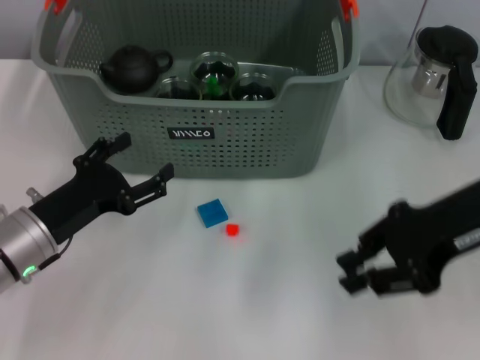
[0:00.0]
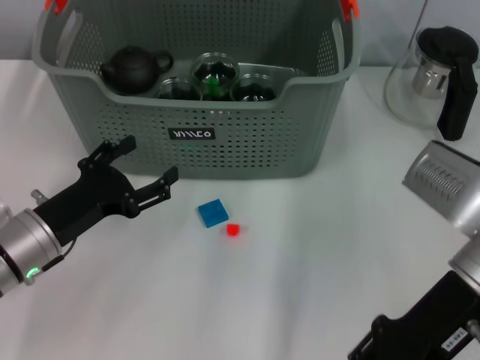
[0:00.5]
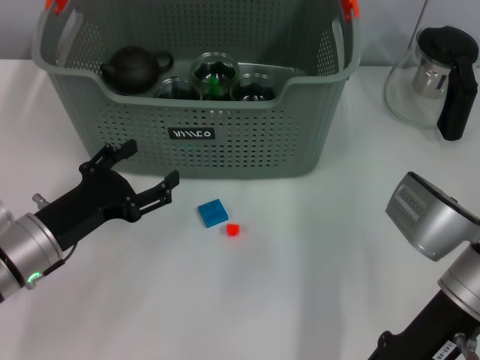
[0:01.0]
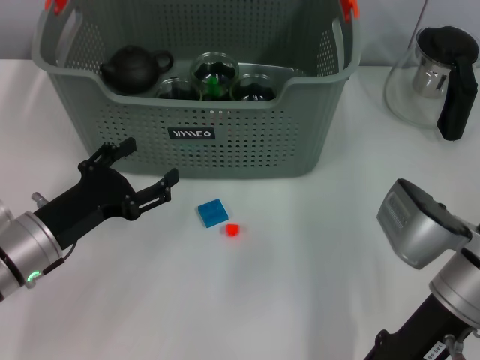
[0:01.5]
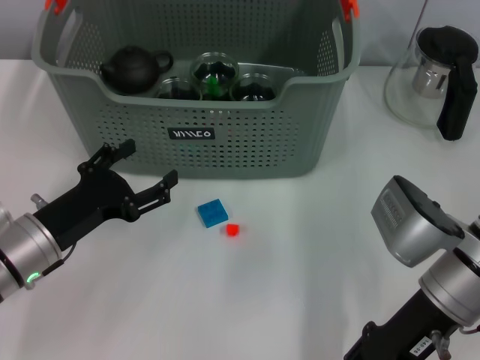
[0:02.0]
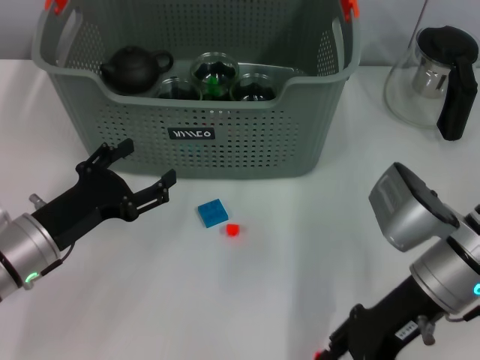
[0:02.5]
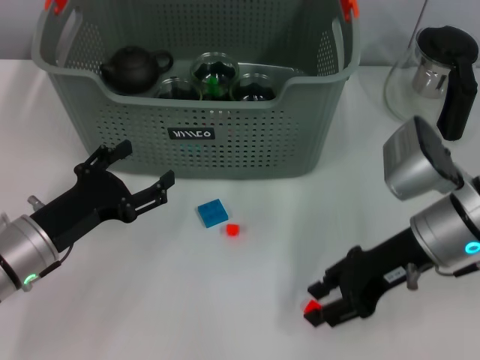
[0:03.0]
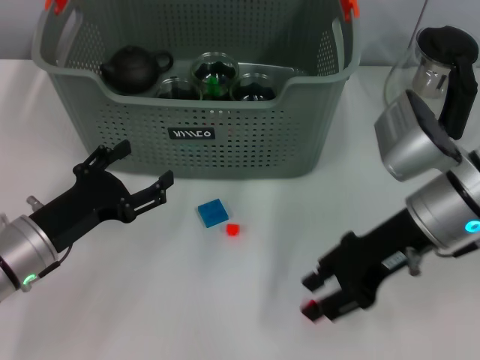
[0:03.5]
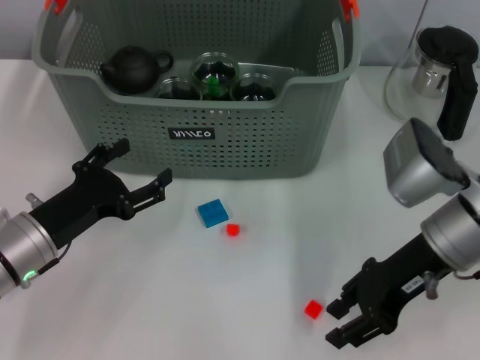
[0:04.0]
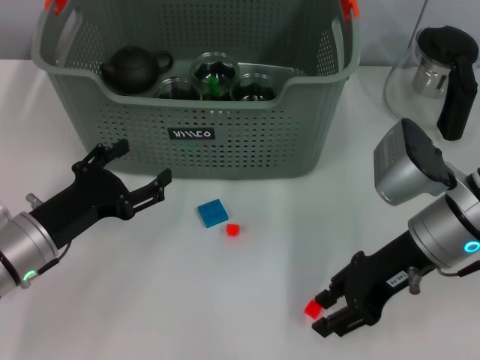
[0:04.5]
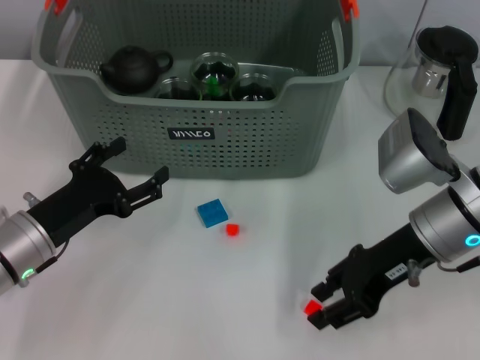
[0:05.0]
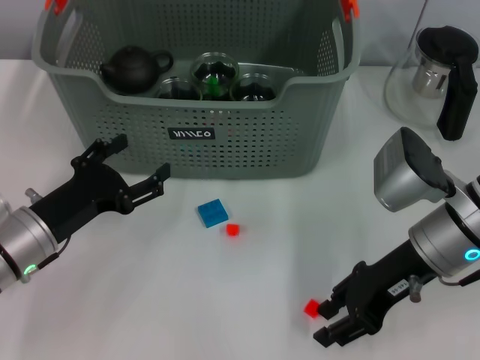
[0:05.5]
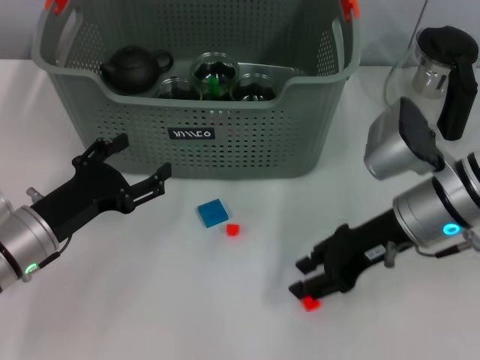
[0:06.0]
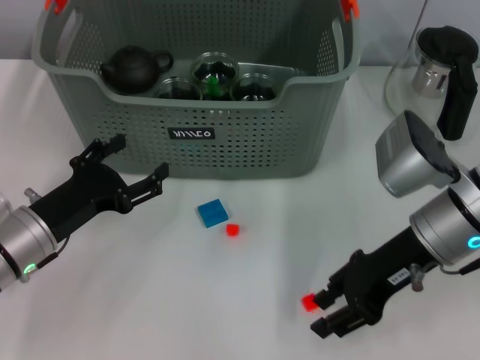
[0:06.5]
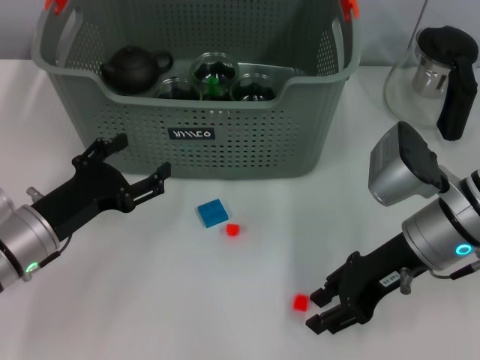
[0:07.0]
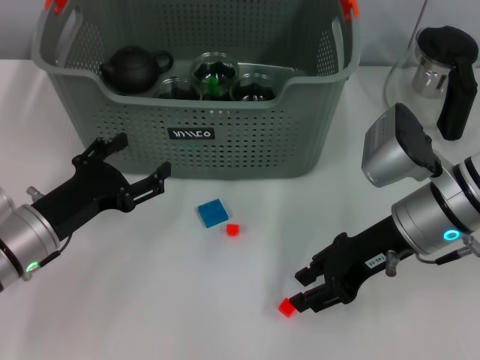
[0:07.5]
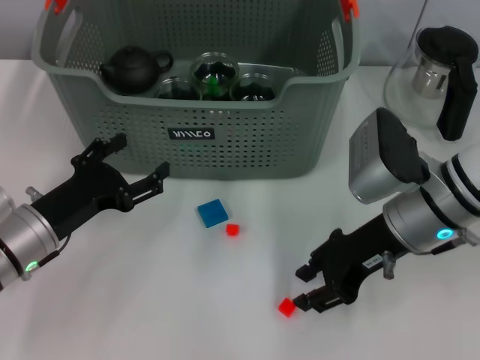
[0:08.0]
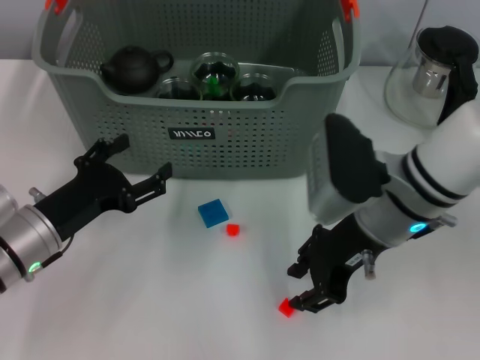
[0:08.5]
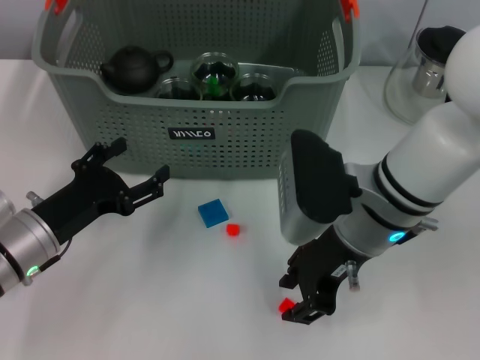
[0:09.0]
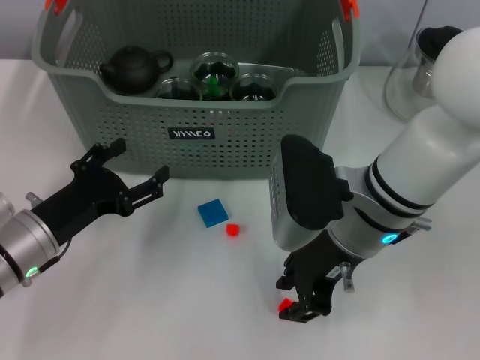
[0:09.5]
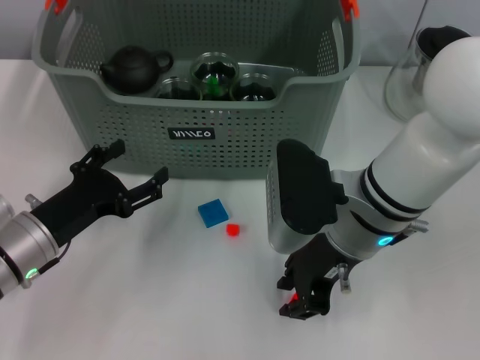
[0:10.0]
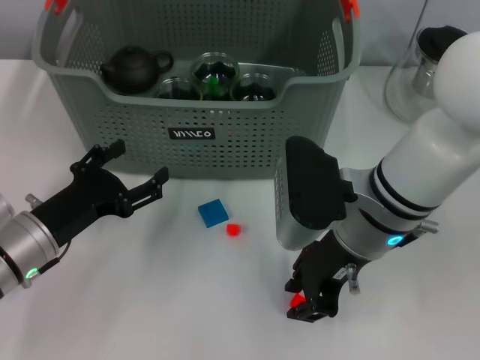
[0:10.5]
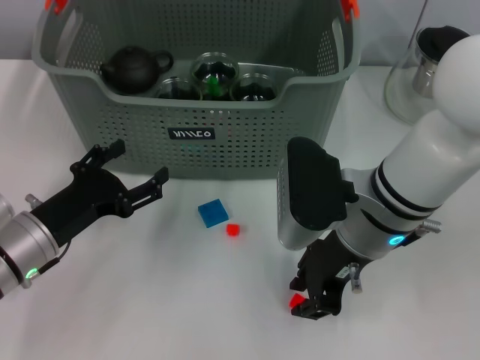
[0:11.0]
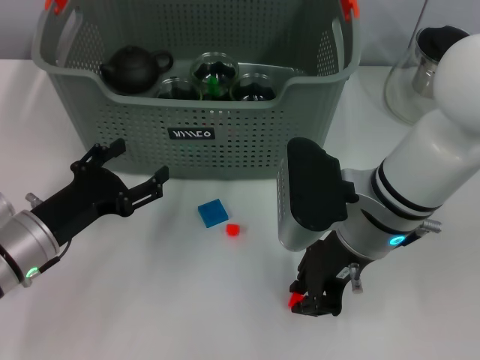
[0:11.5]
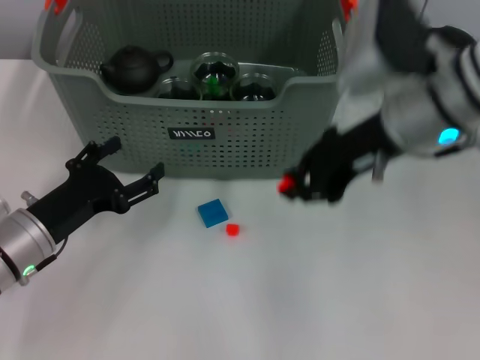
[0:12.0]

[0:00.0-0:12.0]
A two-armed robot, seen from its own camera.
Task of the whole recording: pick up the teacup on the table and place it into the storage bin, pick up the block on the table and place it into the storage bin.
Step, 0:00.0 to 0:11.0: Grasp the orange block with right gripper.
0:00.0 to 0:02.0: The right gripper shifts some 10 cm downward, and opens up.
0:04.0 to 0:08.0: The grippers stay close to where they were, moving slightly.
0:08.0 to 0:10.0: The right gripper moves to the left, about 5 cm.
0:10.0 to 0:12.0: The right gripper travels upward by roughly 10 cm.

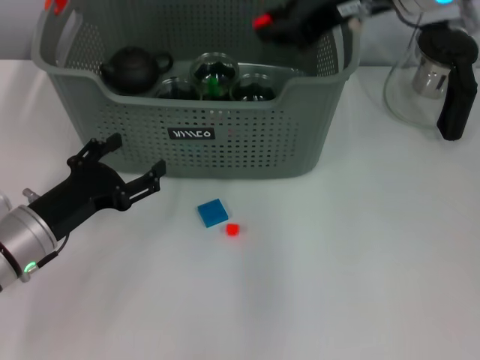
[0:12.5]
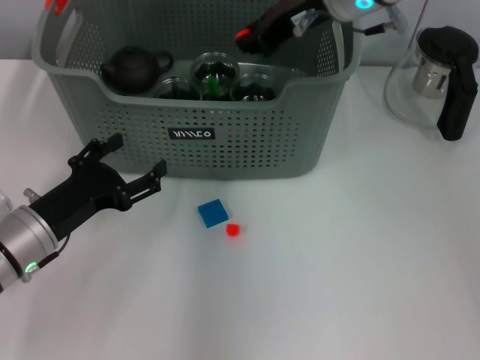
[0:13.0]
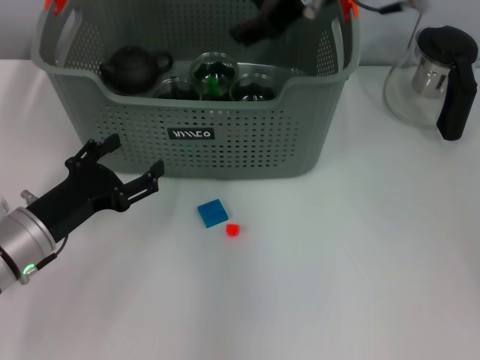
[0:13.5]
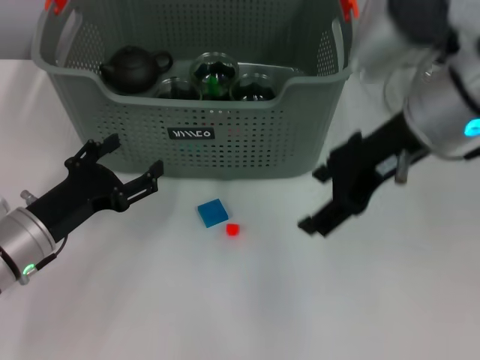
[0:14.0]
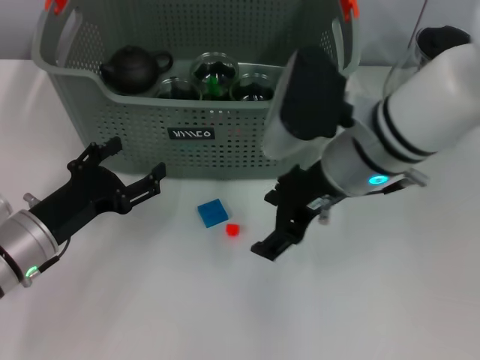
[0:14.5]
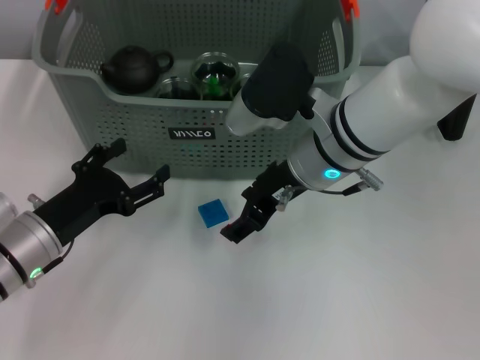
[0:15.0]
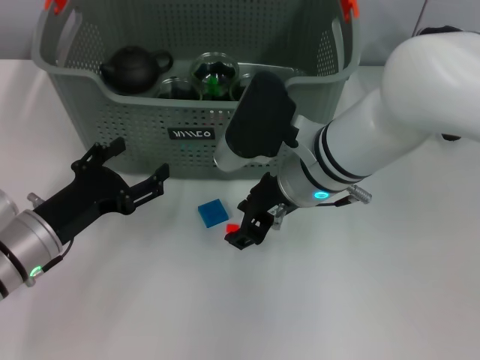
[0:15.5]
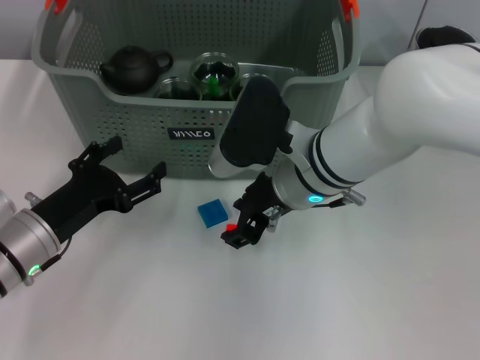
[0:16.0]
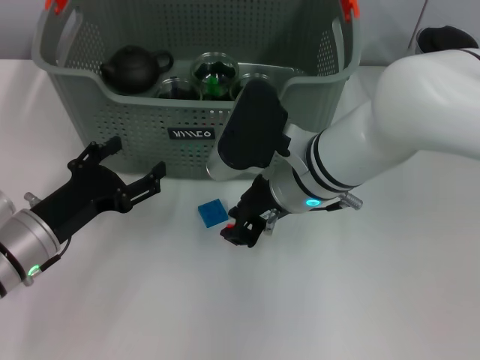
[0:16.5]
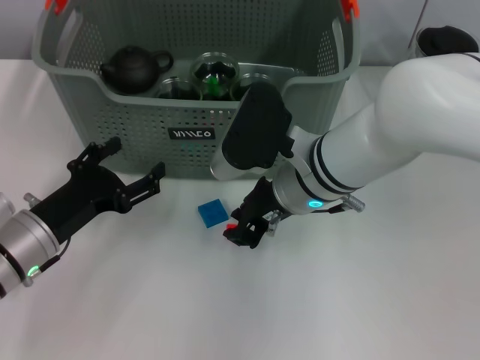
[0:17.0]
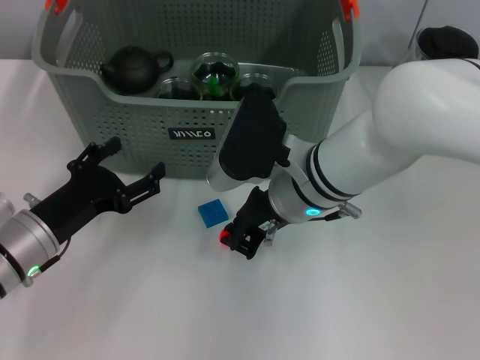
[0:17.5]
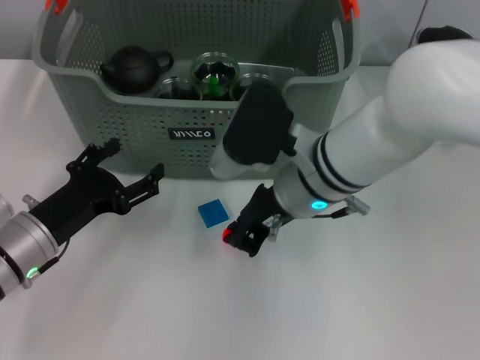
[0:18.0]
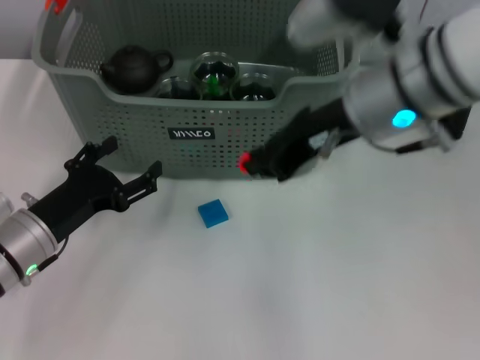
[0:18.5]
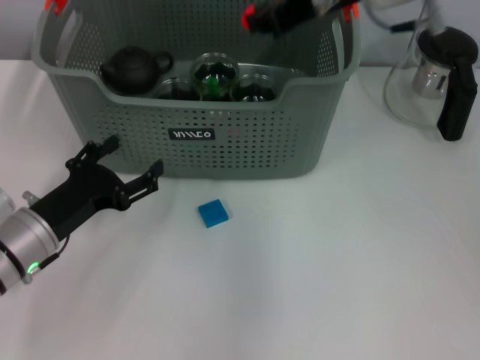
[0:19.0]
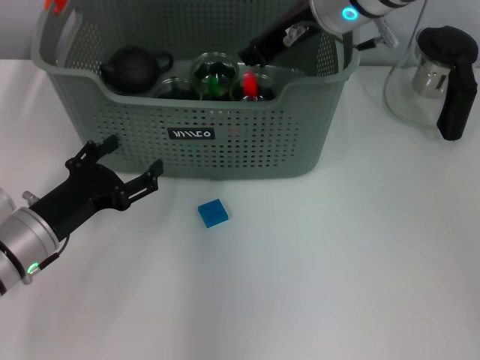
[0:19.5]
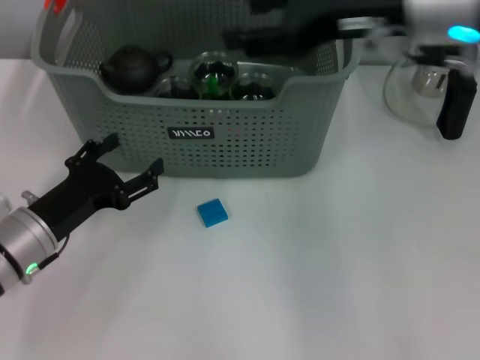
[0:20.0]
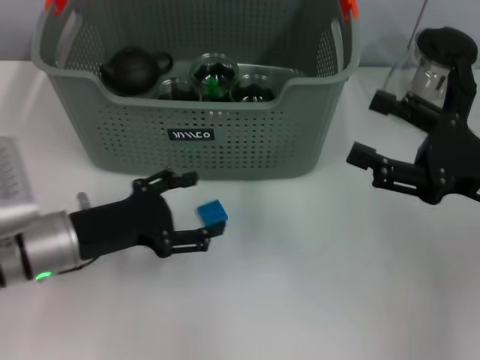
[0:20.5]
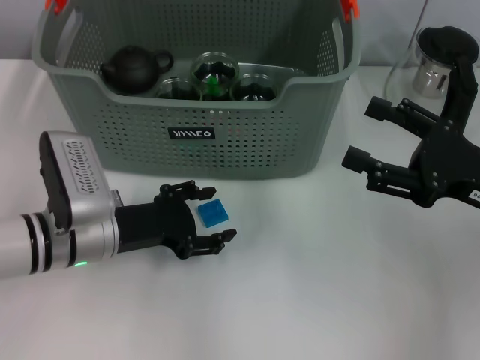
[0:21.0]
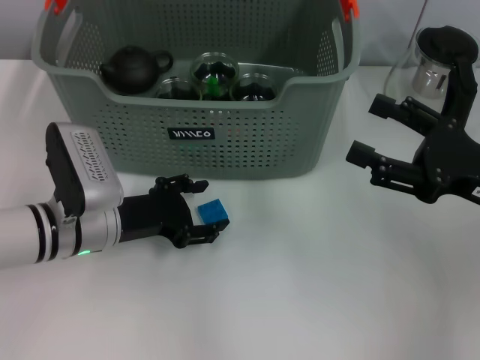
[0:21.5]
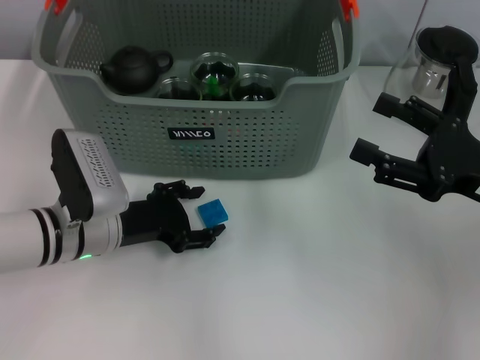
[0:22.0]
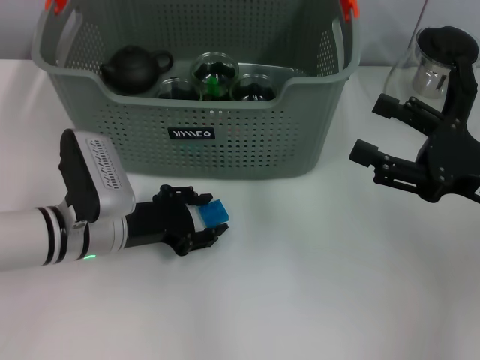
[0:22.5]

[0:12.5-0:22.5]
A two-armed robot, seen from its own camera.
Task of the whole recording: pick up the teacup on the table and place it into the storage bin, pick up the block on the table and place it into the storage bin.
Step, 0:13.5 to 0:17.5: Grasp the orange block with right gripper.
Step, 0:18.0 to 0:19.5: Place the orange block in the storage box with right gripper.
0:12.5 to 0:14.5: The right gripper travels downward and backward by some 15 cm, and opens up.
0:14.5 to 0:16.5: The right gripper moves downward, about 5 cm, and closes.
0:16.5 to 0:18.5: The right gripper heads upward and to the right, covering roughly 15 cm, and closes up.
0:18.5 to 0:20.5: The right gripper goes about 20 cm to the right, downward and backward, and opens.
0:20.5 to 0:22.5: The left gripper ends up roughly 5 cm from where it was.

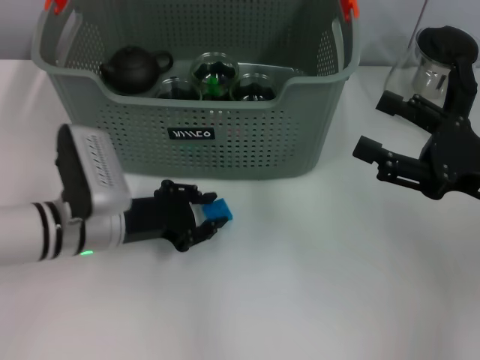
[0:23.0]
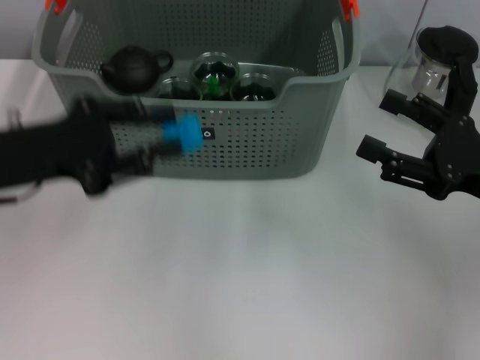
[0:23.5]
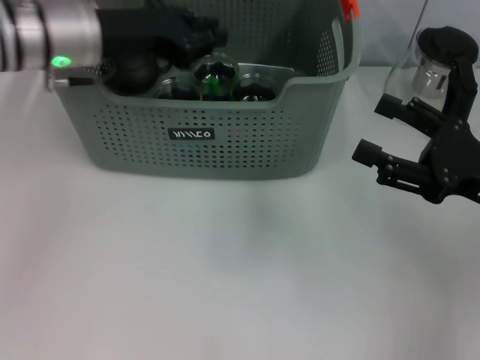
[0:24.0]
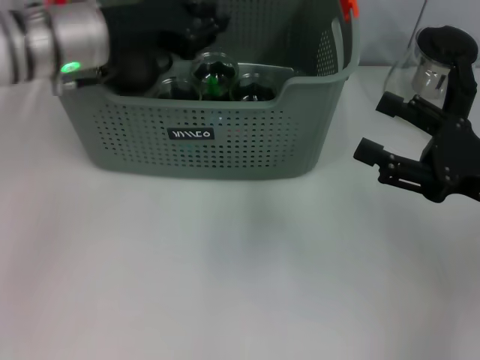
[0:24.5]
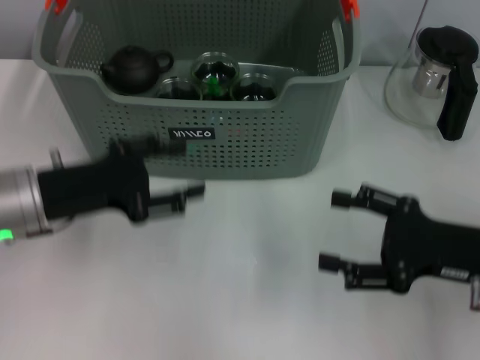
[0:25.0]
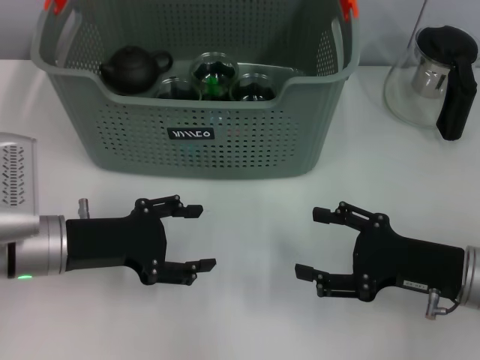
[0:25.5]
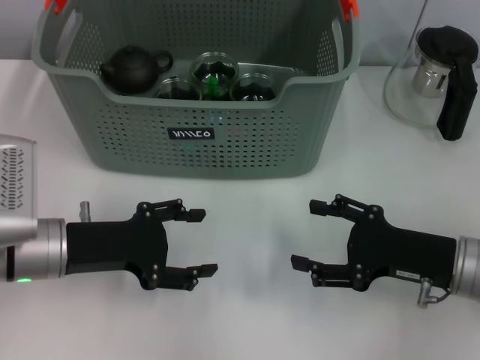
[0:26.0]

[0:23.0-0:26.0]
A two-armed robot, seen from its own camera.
Task of the whole recording: pick up the teacup on the table and place it into the storage bin, pick up the block on the table and place it into the storage bin.
Step, 0:23.0 to 0:24.0: Place the dark blue block in the storage box with left gripper.
0:23.0 to 0:24.5: The left gripper goes approximately 15 cm upward and forward.
0:24.5 to 0:26.0: The left gripper goes some 15 cm backward and downward, and opens up. The right gripper shifts some 5 cm downward.
